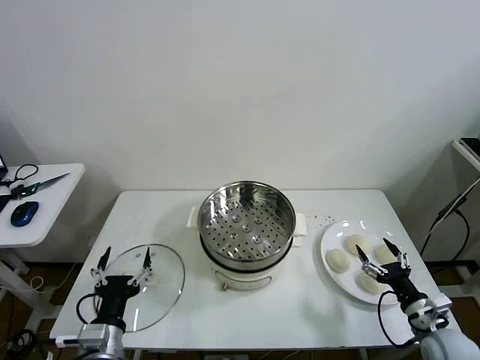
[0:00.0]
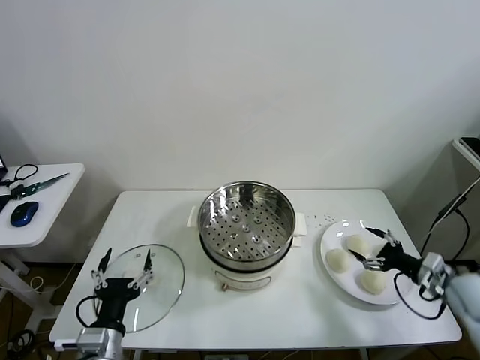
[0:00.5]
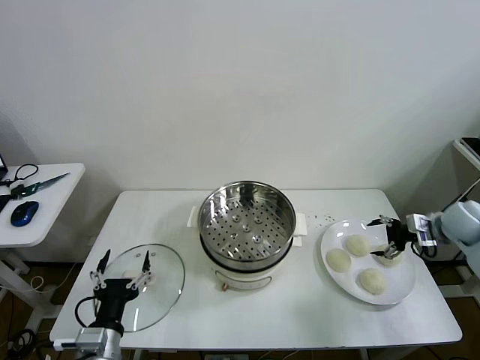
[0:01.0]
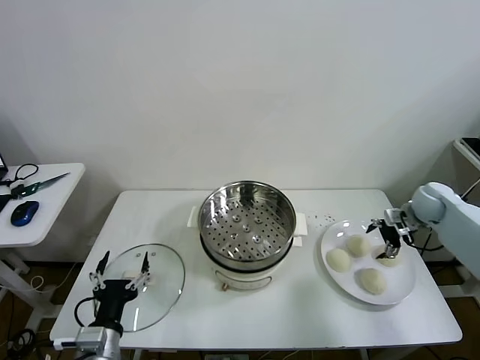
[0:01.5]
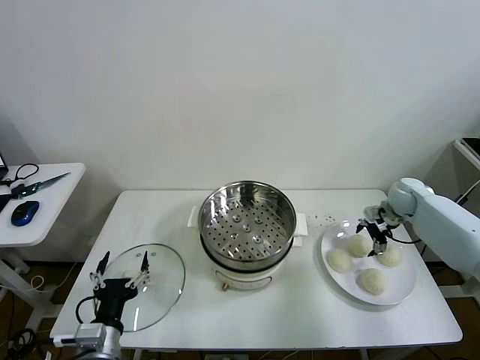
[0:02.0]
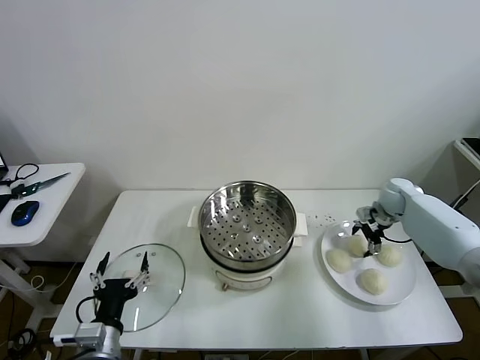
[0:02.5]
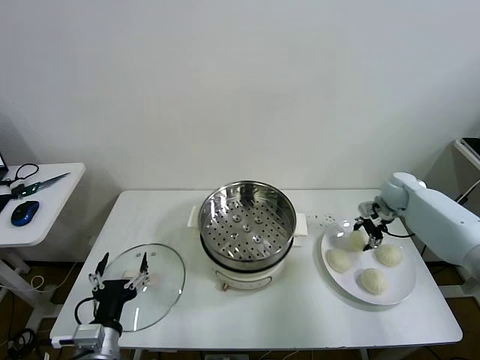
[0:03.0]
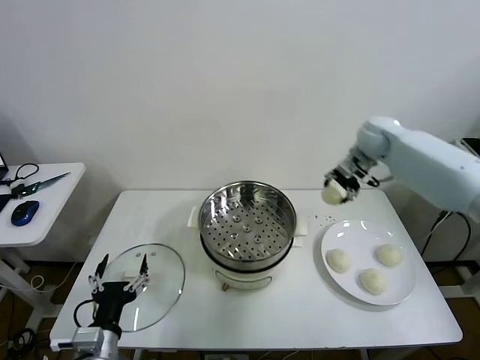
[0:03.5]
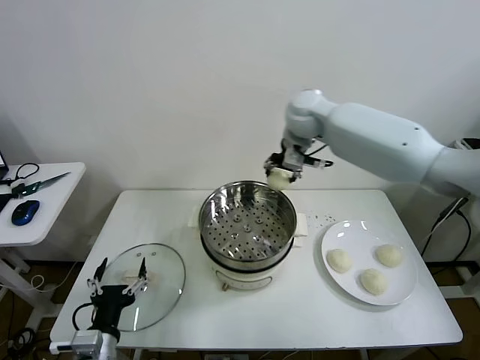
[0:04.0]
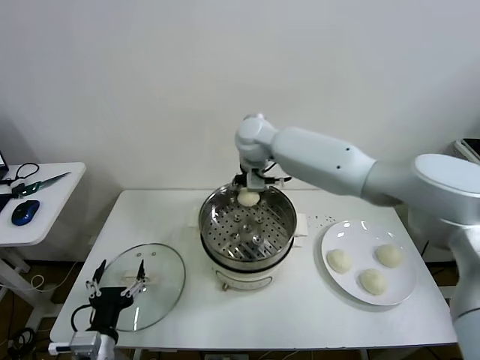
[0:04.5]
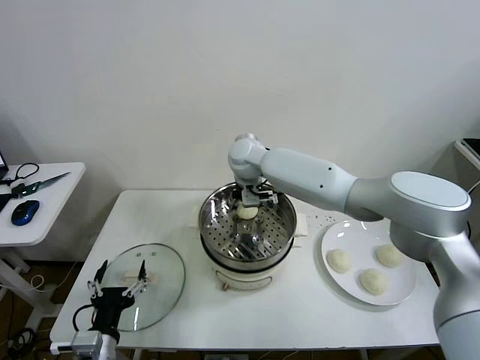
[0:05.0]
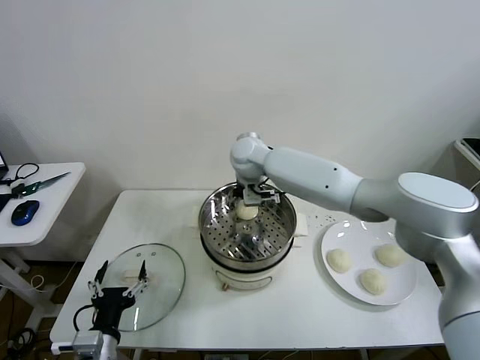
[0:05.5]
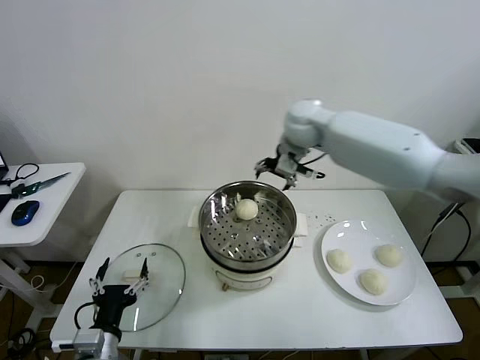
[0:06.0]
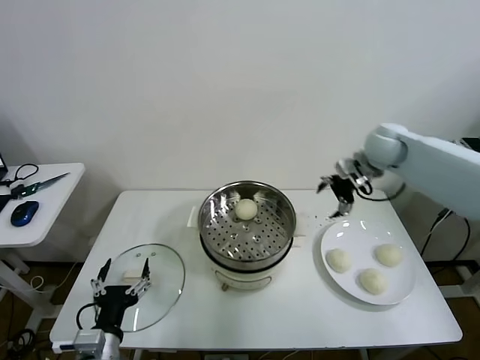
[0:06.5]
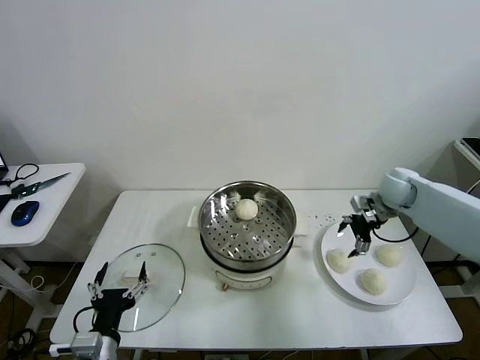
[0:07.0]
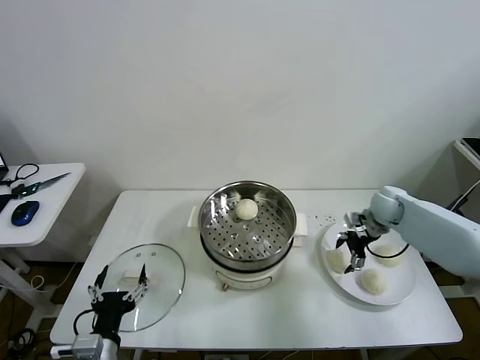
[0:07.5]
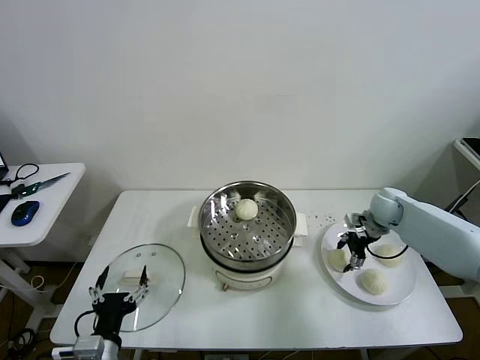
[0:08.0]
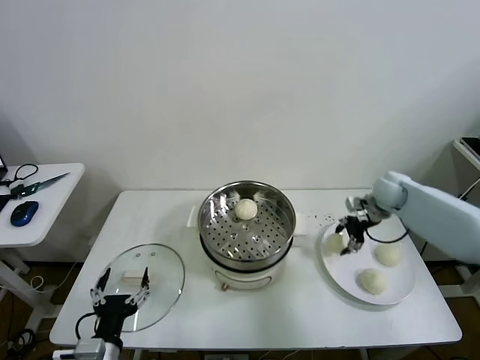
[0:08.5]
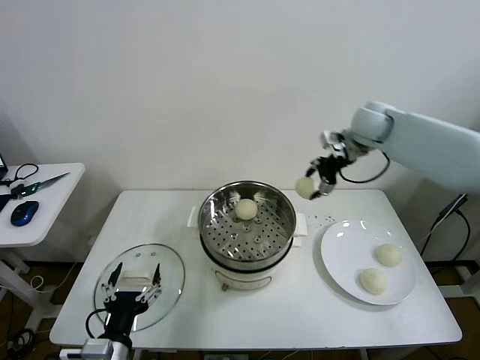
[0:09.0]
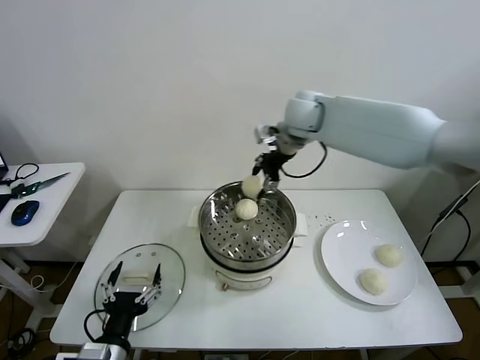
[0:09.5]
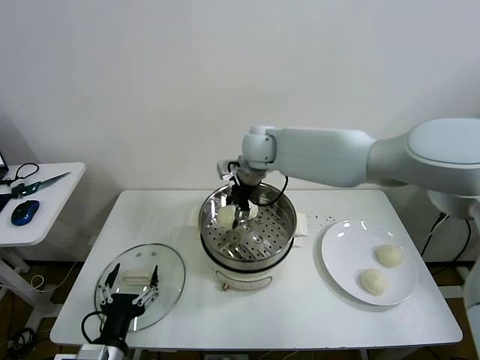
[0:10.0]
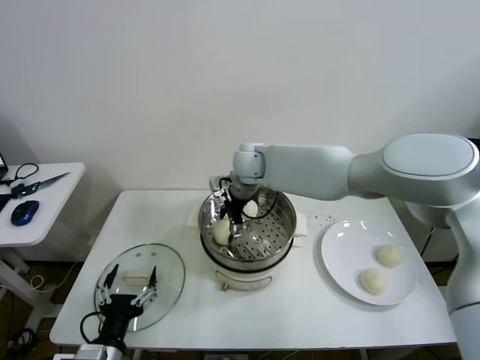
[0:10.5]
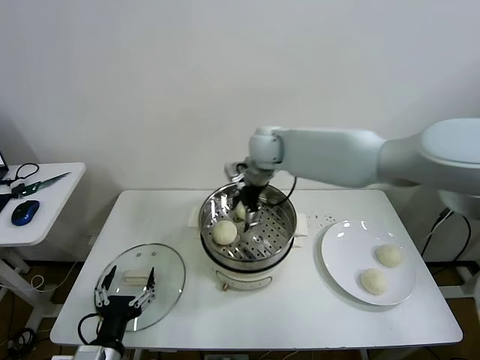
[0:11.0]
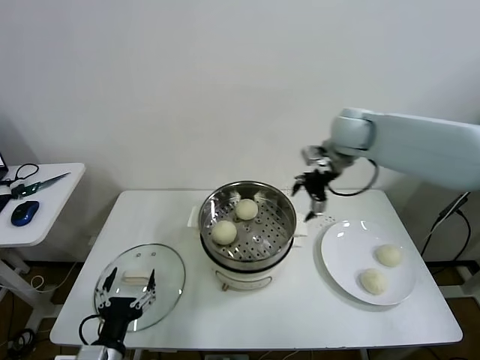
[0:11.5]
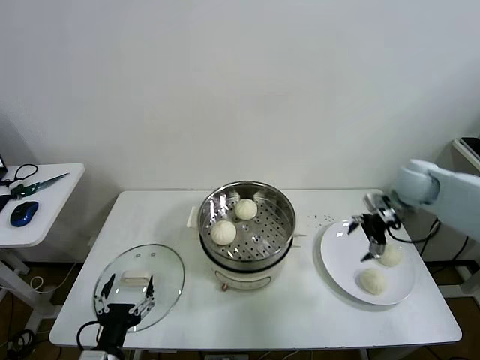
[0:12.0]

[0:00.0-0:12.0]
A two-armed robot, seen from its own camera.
Task of the whole recording: take steamed baozi put them in steamer then cover it.
Step, 0:00.0 to 0:02.5: Grasp the baozi in the plate with right gripper.
Step, 0:03.0 to 0:05.0: Place the baozi on the steamer with right gripper.
Step, 0:06.0 to 0:08.0: Grasp the baozi in the plate with right gripper.
Step, 0:08.5 to 0:10.5: Place the baozi on the steamer with right gripper.
0:02.0 to 0:04.0: The right gripper travels to the left and upward by approximately 40 cm, and closes its fingers.
0:04.0 to 0:06.0: The right gripper goes roughly 5 cm to the right, and opens its fingers.
0:06.0 to 0:08.0: The right gripper heads downward and to the right, covering some 30 cm, and closes up.
0:08.0 to 0:10.0: The right gripper moves to the left and upward, roughly 40 cm.
0:10.0 to 0:12.0: The right gripper goes about 35 cm to the right, and opens its fingers.

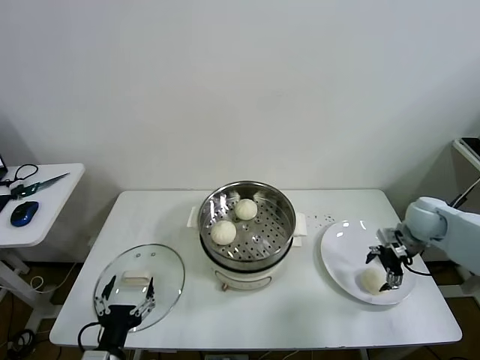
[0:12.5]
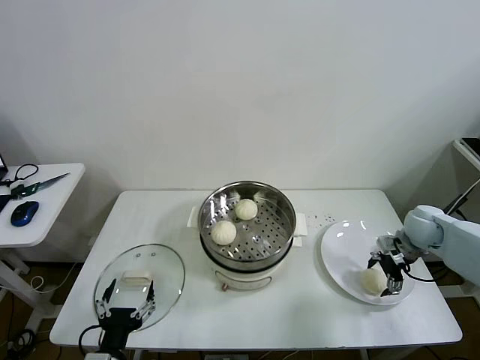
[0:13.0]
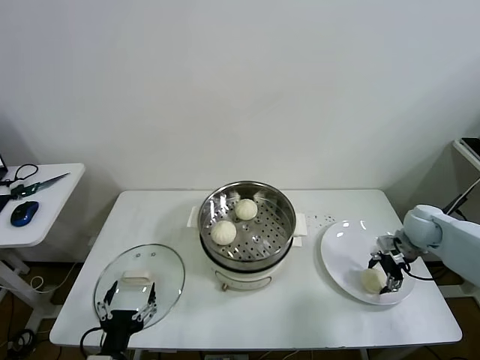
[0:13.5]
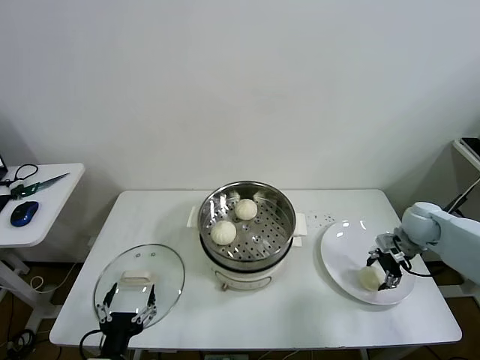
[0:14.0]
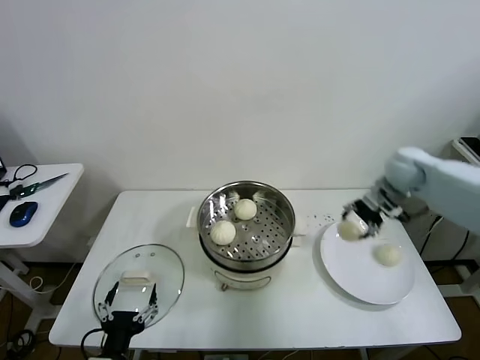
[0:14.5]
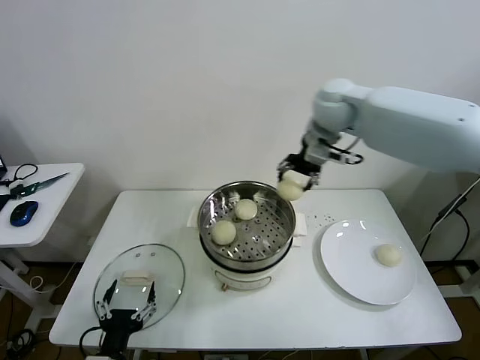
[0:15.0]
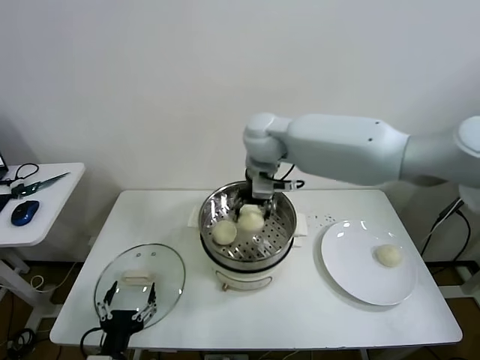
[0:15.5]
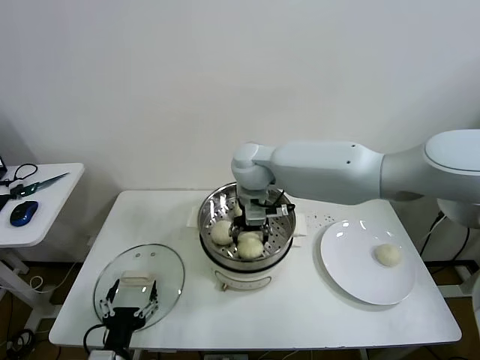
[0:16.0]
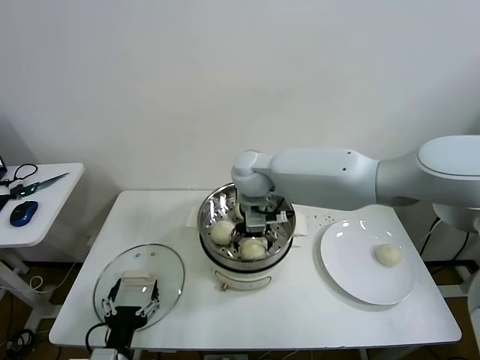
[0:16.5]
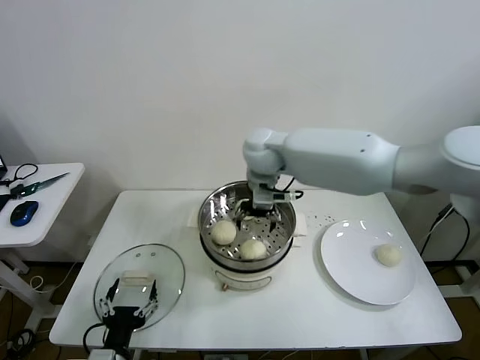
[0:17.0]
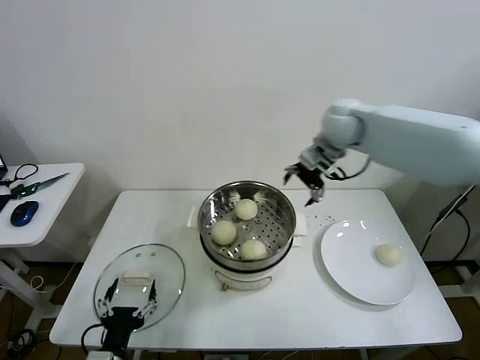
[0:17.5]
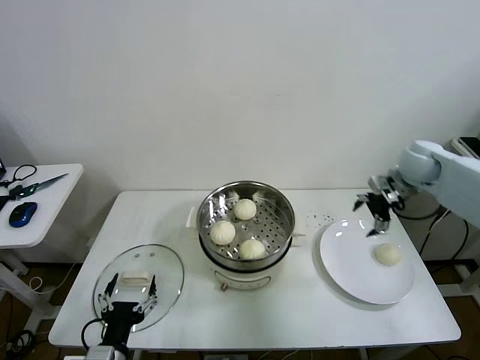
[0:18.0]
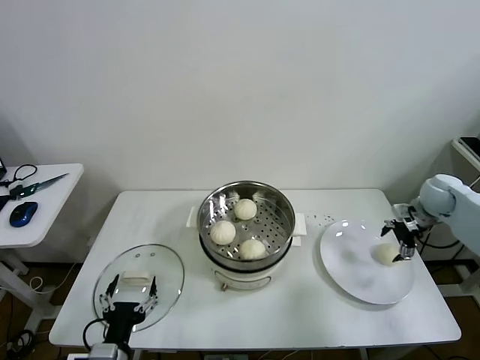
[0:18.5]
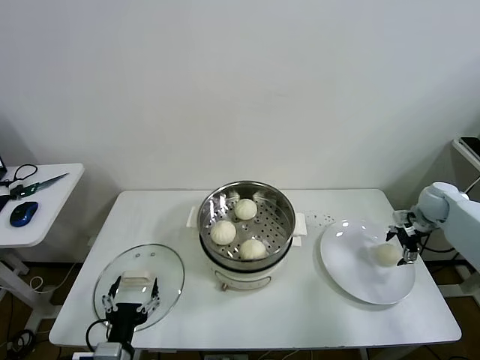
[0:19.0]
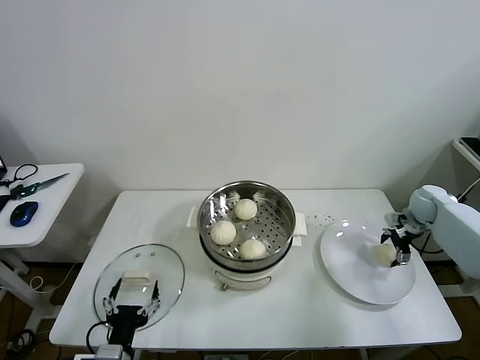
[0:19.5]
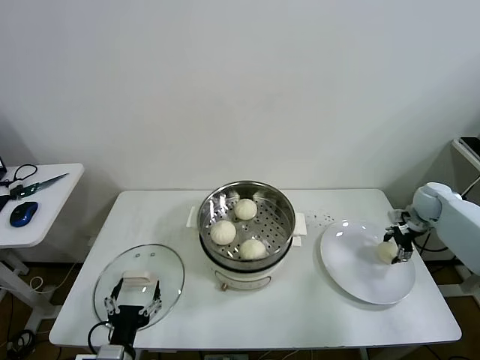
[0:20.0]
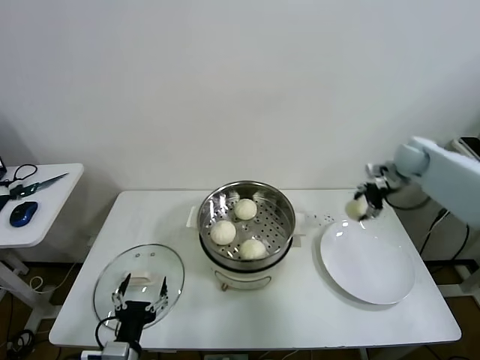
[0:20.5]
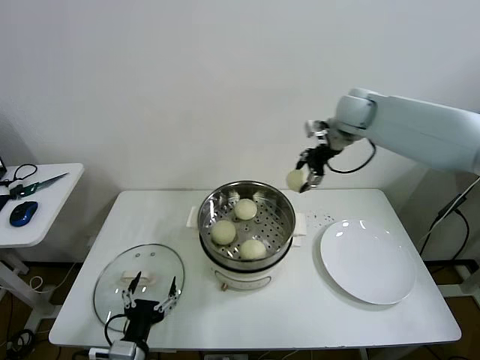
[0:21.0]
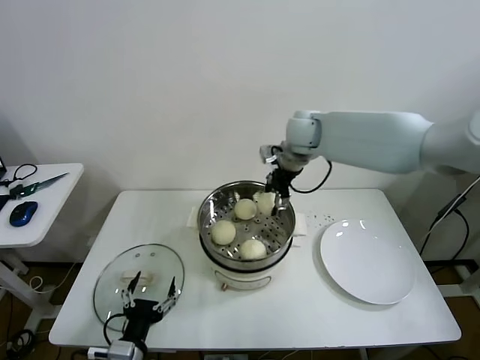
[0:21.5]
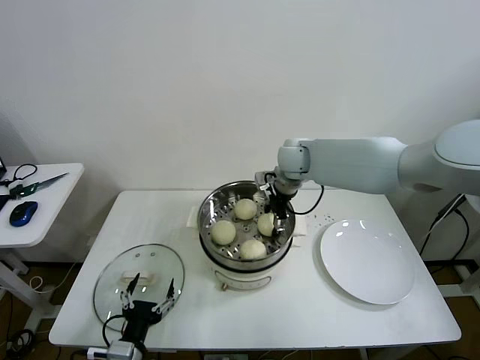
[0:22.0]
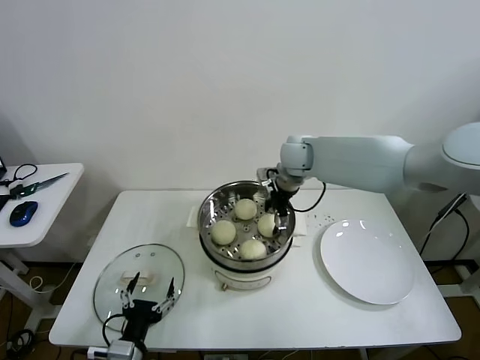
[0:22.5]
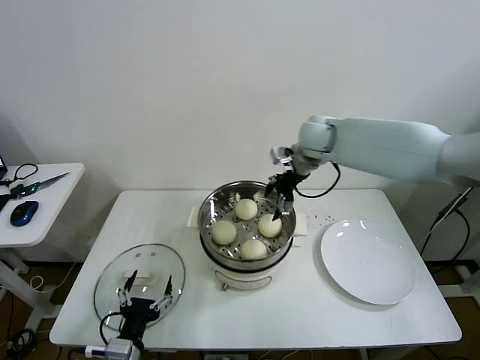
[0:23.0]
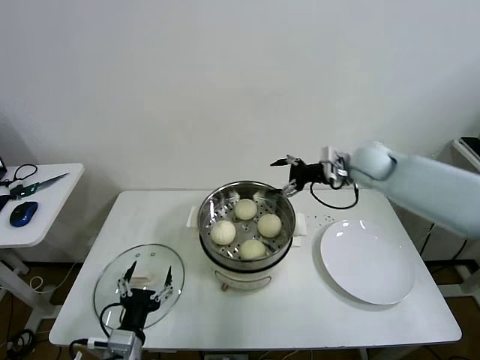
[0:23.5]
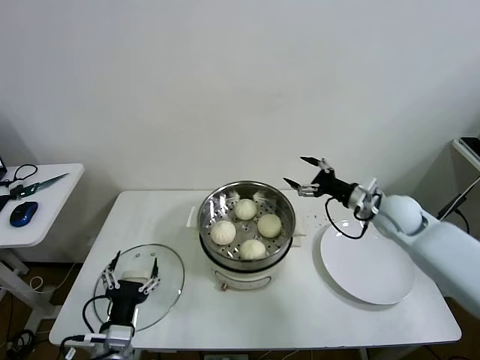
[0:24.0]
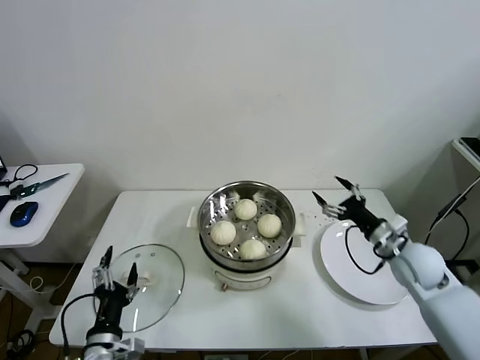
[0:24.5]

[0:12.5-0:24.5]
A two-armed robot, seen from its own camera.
Task of the whole recording: take steamed baozi put them in steamer then cover it.
Step, 0:14.0 to 0:16.5: Place the baozi on the steamer with right gripper.
Step, 0:17.0 to 0:19.5: Grasp the baozi in the plate with right gripper.
Step, 0:20.0 to 0:22.5: Place the baozi on the steamer with right gripper.
0:12.5 to 0:14.5: The right gripper heads upward, to the left and forward, covering some 15 cm, and closes up.
0:14.5 to 0:16.5: The right gripper heads to the left, covering approximately 35 cm, and opens up.
0:16.5 to 0:18.5: The right gripper moves to the right, approximately 50 cm.
0:18.5 to 0:20.5: The right gripper travels upward, to the left and forward by approximately 10 cm, and closes up.
0:20.5 to 0:22.5: The right gripper goes about 30 cm to the left, and opens up.
0:22.5 to 0:24.5: The right gripper shifts roughly 35 cm to the right, backward and downward.

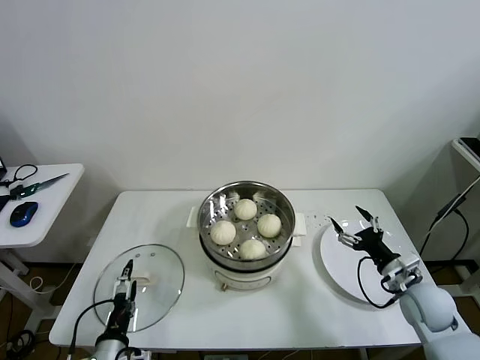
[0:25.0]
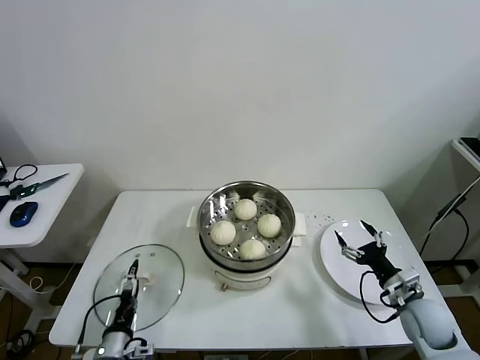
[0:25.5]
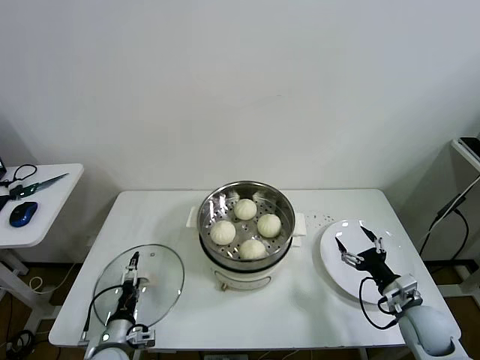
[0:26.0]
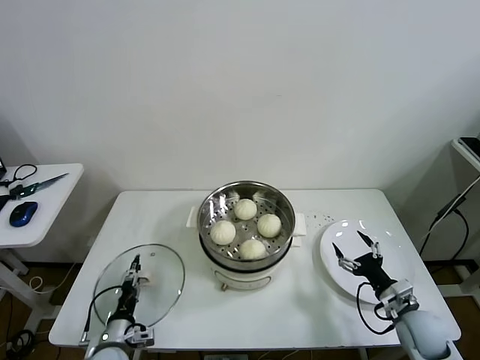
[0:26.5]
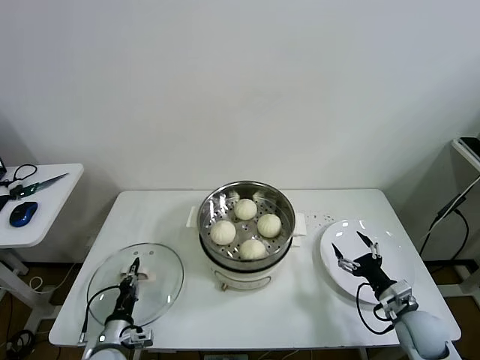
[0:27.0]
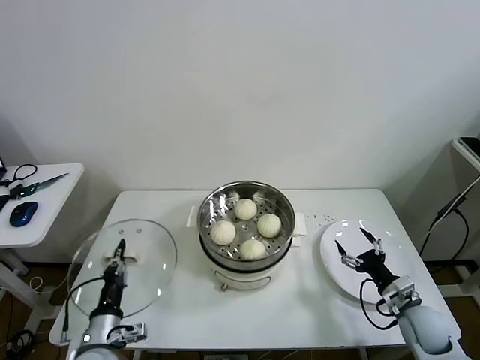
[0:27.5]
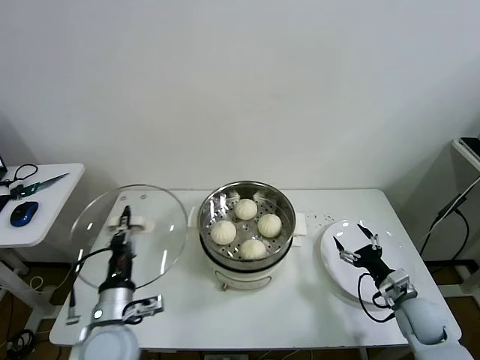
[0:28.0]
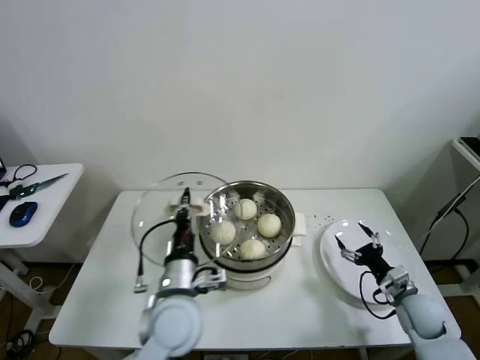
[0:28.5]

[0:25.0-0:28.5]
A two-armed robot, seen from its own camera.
Task of the whole recording: take steamed baozi put them in steamer then cover it.
0:25.0 to 0:27.0: The left gripper is displaced downward and forward by some 10 cm, and closes up. The right gripper is displaced downward by approximately 5 cm.
0:27.0 to 0:28.5: The left gripper is displaced upward and to the right by some 25 cm.
